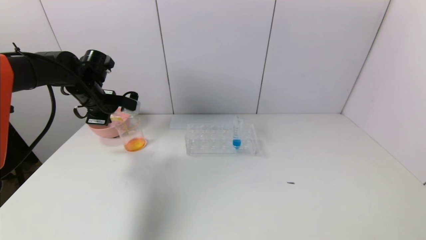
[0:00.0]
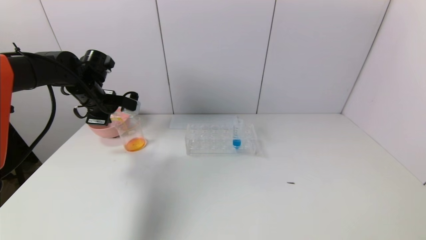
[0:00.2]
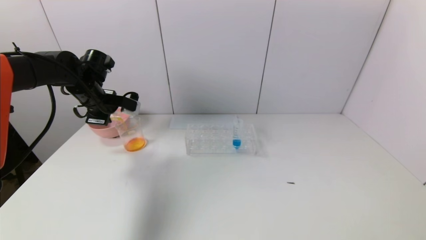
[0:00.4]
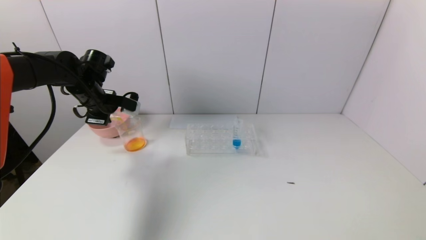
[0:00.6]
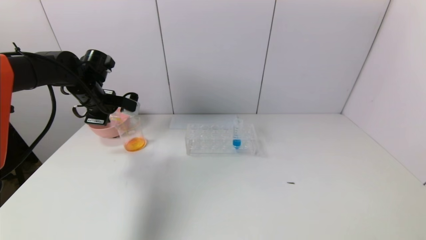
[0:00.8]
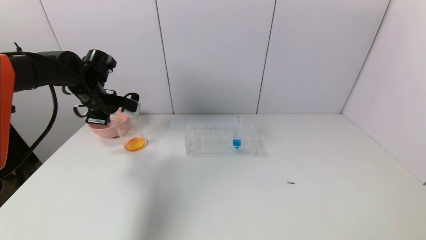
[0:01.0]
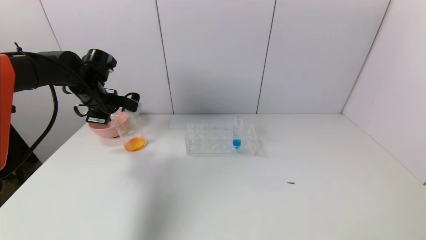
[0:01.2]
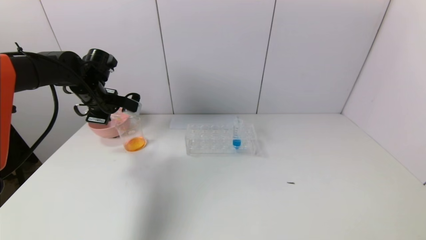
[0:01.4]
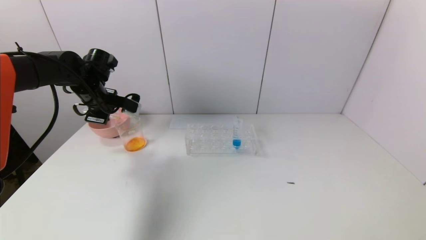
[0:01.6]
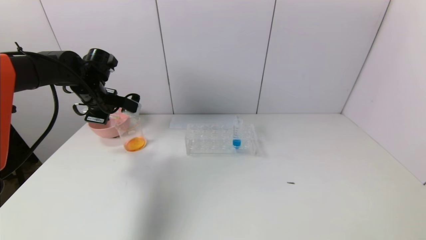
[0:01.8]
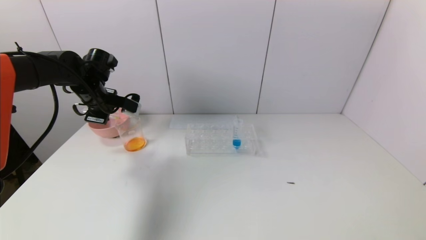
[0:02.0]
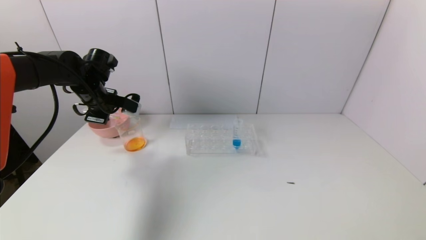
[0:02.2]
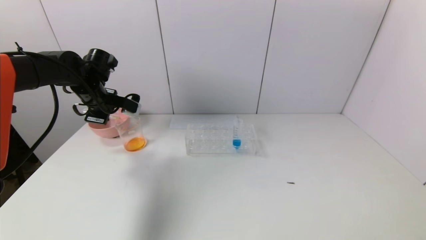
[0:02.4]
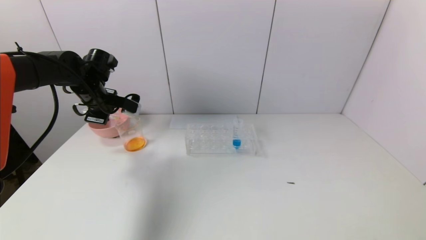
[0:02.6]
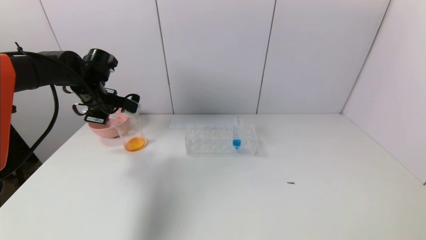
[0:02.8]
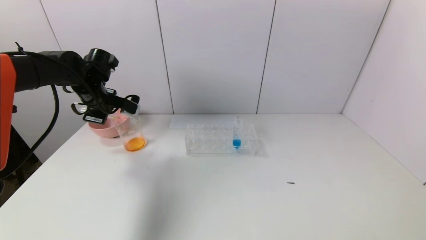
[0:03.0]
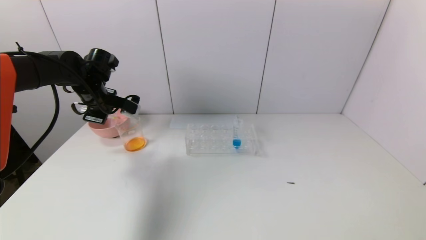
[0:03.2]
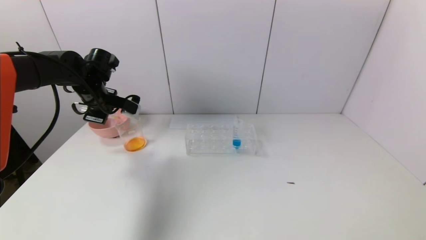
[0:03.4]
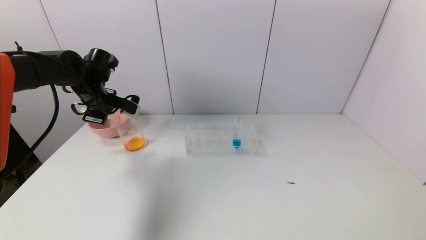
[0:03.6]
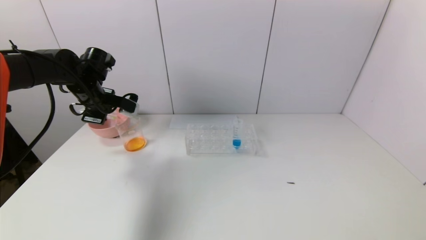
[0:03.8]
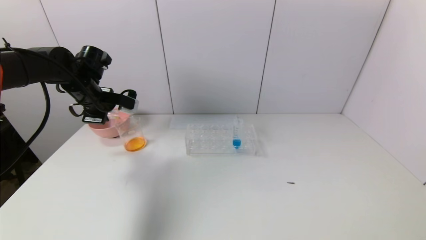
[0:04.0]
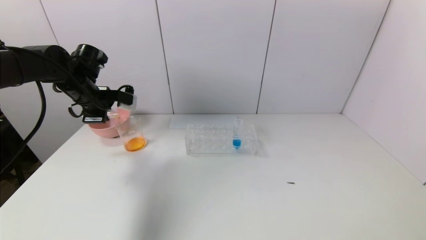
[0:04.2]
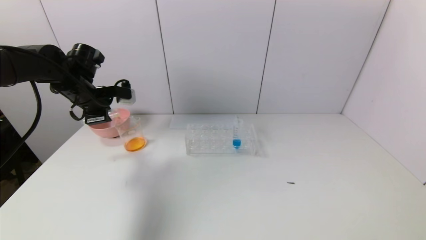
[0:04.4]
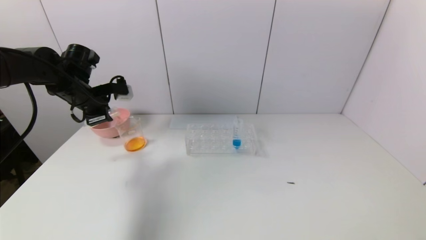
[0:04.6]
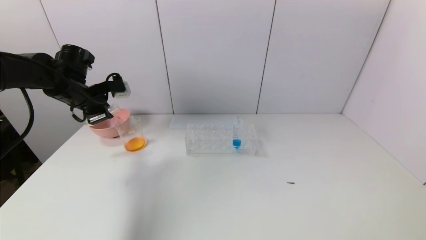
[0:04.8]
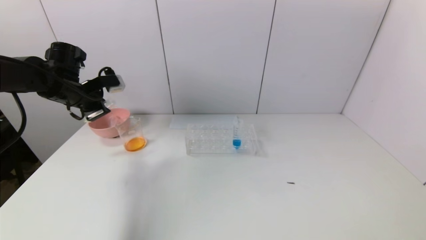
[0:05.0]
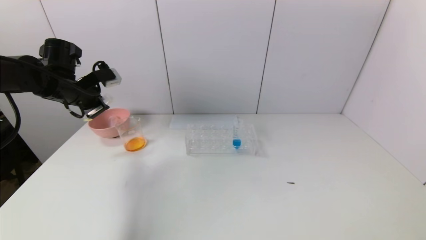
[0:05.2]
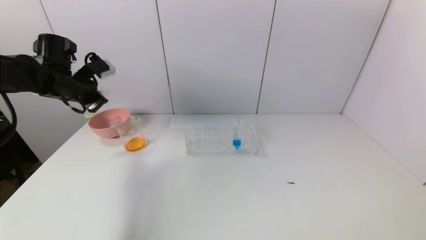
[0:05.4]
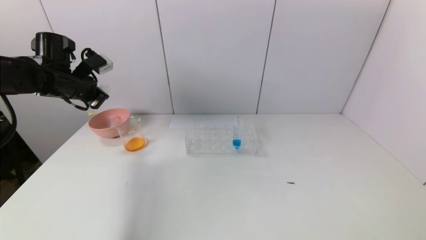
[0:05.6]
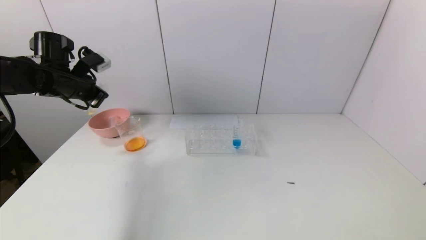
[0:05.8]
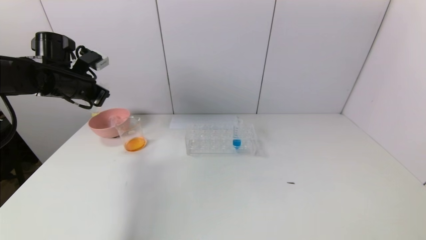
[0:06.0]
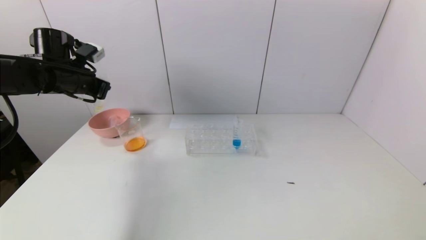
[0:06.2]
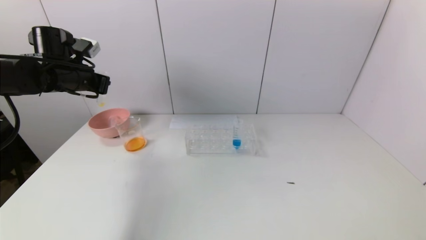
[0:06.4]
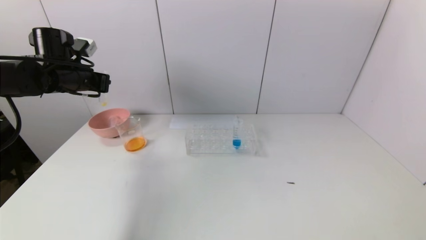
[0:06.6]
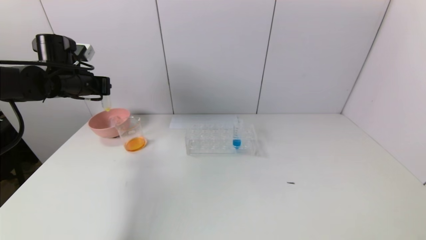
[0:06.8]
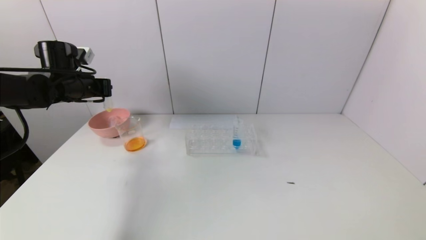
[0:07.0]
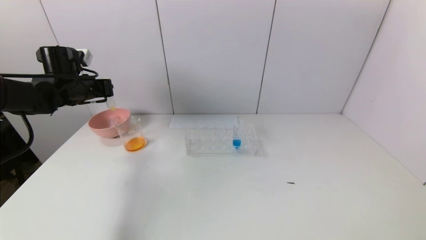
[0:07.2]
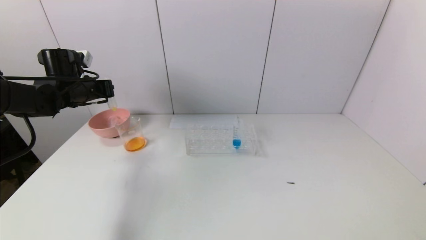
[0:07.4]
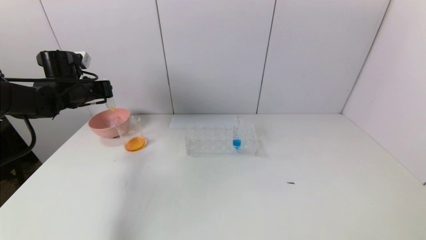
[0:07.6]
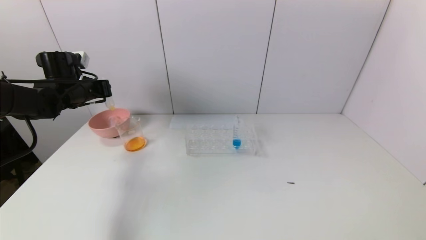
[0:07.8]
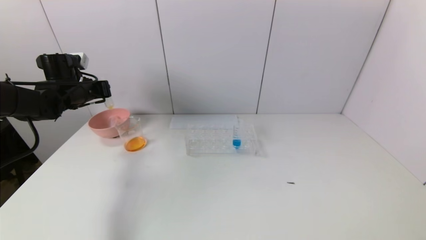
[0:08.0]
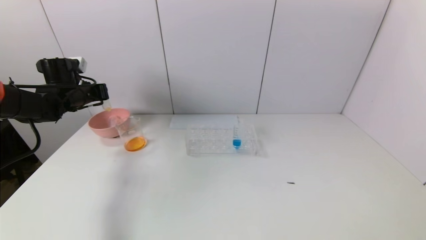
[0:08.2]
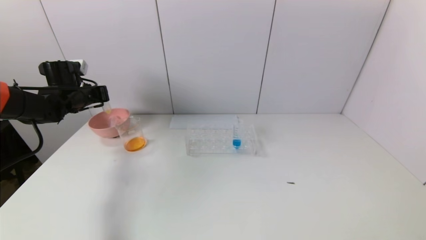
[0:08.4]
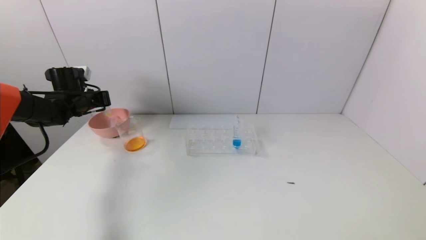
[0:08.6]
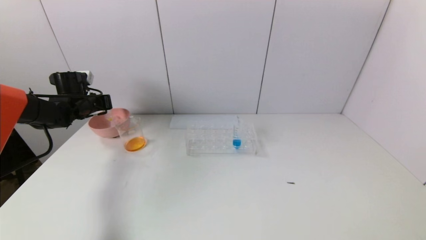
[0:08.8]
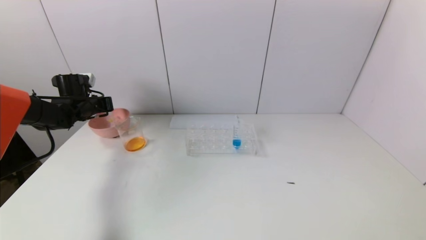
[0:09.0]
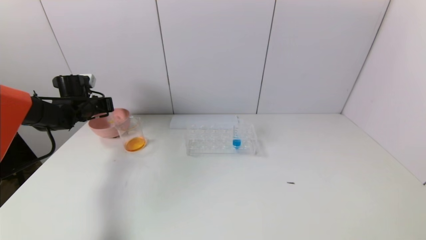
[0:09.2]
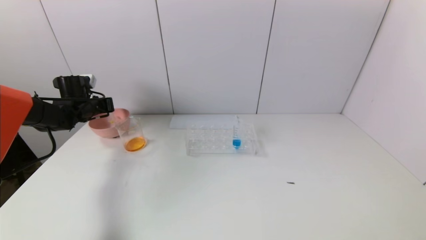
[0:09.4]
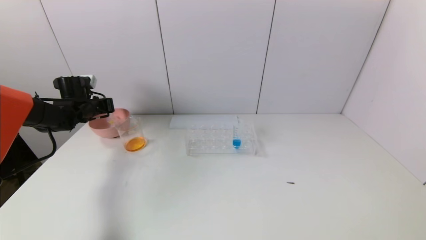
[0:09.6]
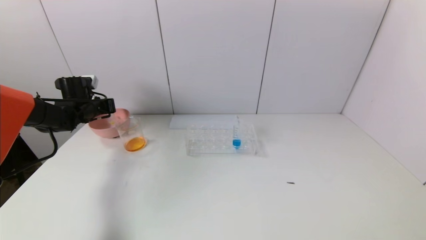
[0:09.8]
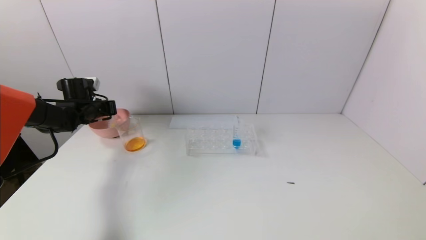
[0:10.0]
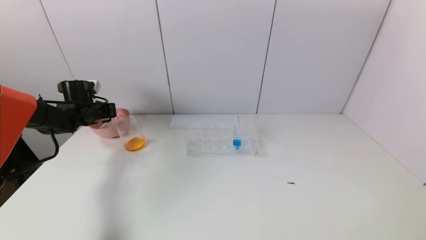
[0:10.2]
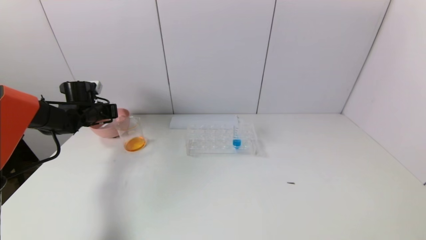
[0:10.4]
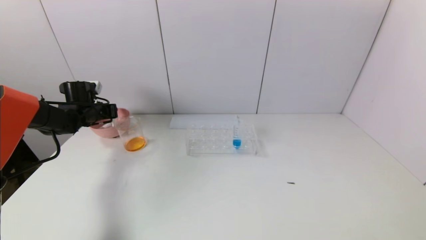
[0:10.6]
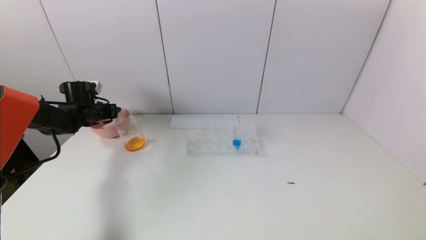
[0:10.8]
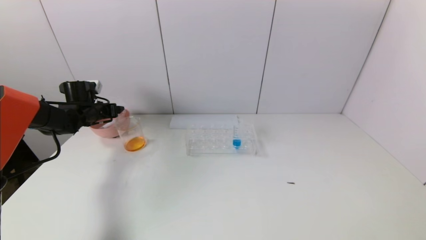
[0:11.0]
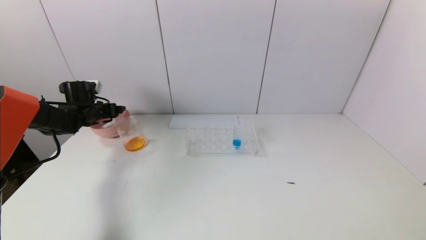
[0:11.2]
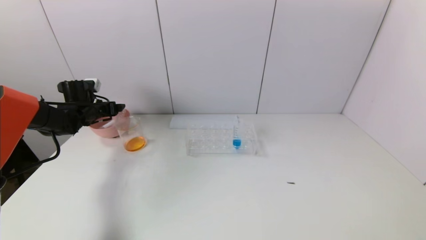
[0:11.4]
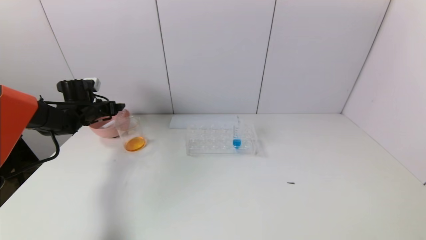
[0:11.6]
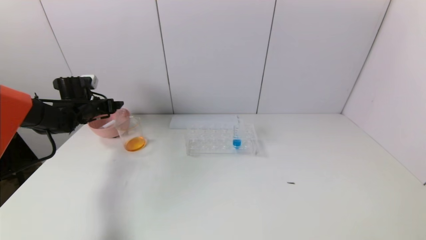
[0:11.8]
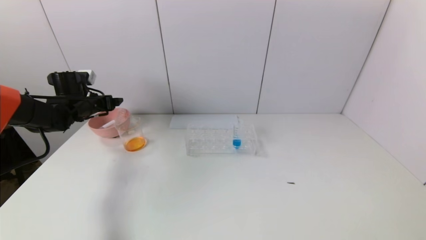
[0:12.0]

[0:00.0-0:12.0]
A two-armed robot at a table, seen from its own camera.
Task of the whole recording: pick up the test tube with yellow pigment and the test tube with red pigment by grippers and pour them into the beaker.
Step, 0:00.0 to 0:03.2: Pour the yellow reagent into the graduated cylinder with the left gripper.
Step, 0:03.4 to 0:10.8: Place the test tube into the pink bowl with the left gripper.
0:00.0 to 0:01.6: The grippers make only small movements.
0:01.6 to 0:03.0: Neither gripper changes place.
0:07.6 to 0:09.0: The left gripper travels downward by roughly 5 cm.
0:09.0 to 0:10.4: There are only small adjustments of the grippers.
0:10.4 to 0:12.0: The left gripper ends up approximately 5 cm from where it was, and opens its fingers.

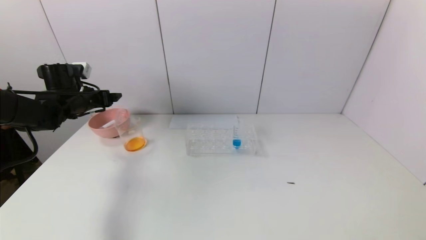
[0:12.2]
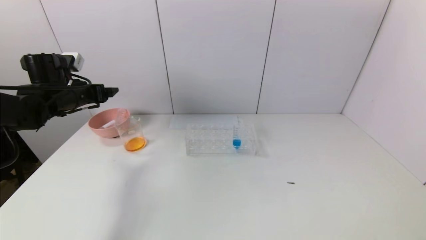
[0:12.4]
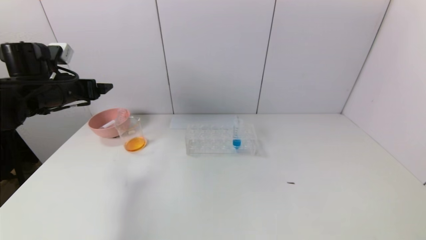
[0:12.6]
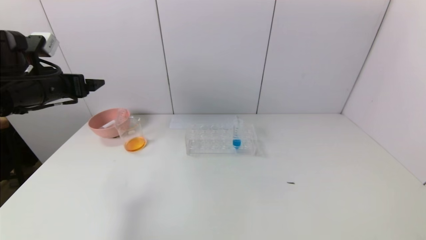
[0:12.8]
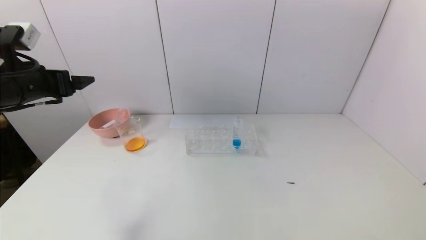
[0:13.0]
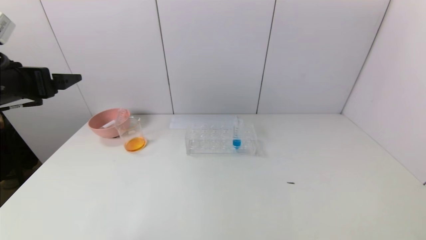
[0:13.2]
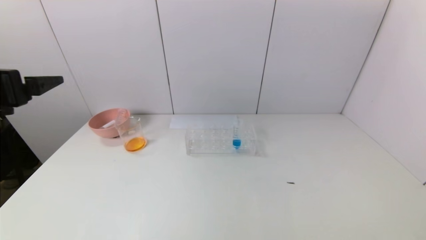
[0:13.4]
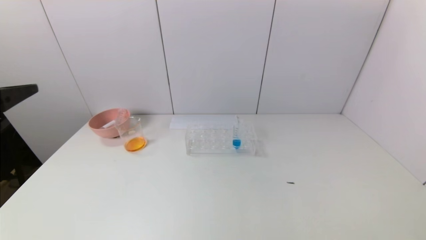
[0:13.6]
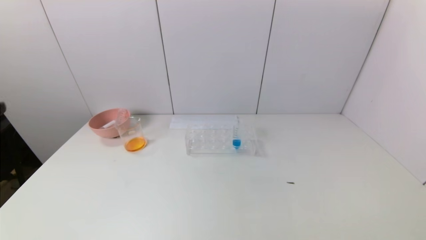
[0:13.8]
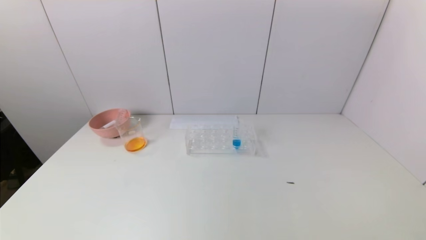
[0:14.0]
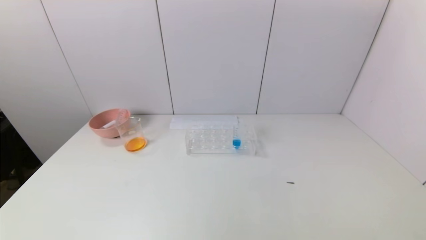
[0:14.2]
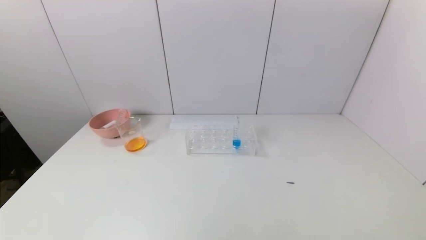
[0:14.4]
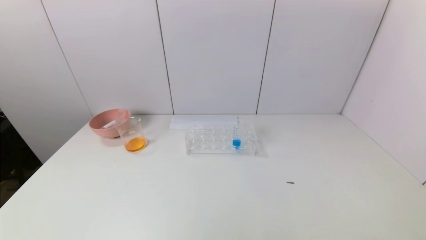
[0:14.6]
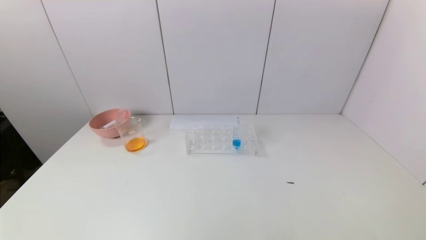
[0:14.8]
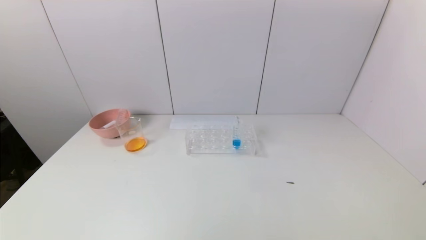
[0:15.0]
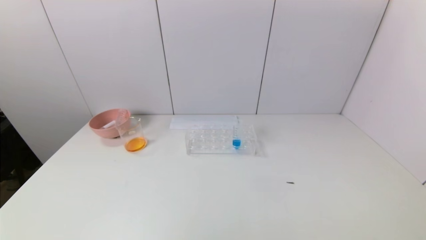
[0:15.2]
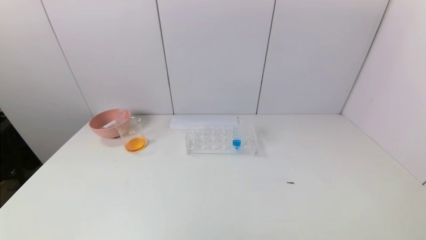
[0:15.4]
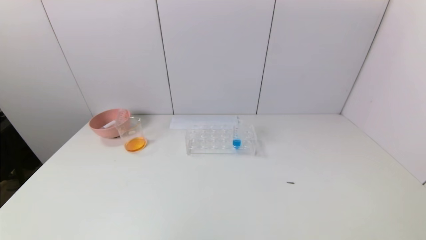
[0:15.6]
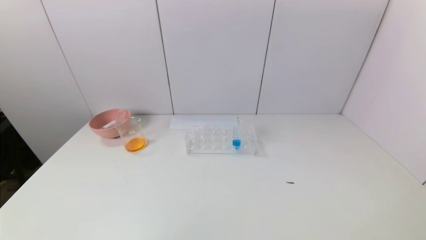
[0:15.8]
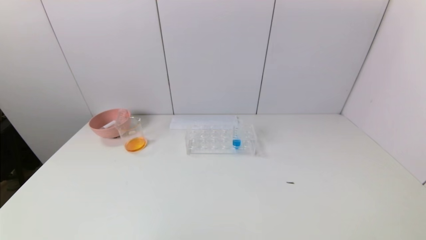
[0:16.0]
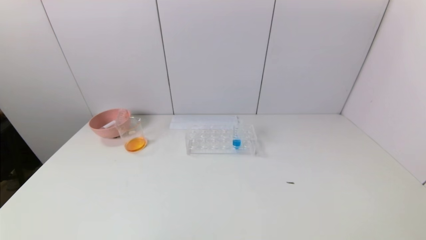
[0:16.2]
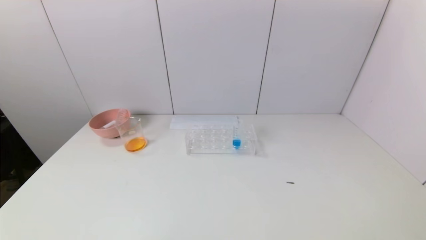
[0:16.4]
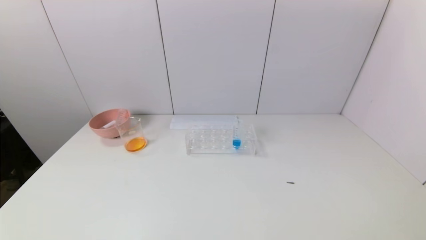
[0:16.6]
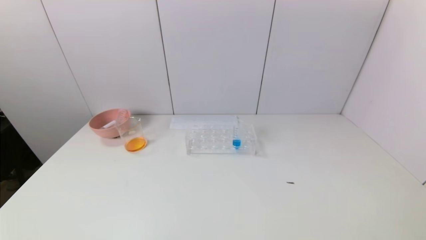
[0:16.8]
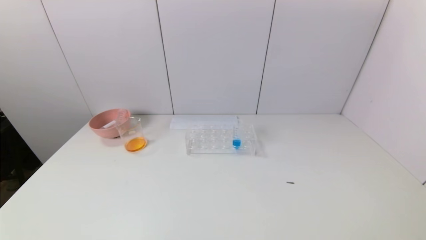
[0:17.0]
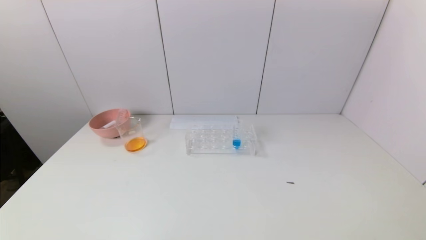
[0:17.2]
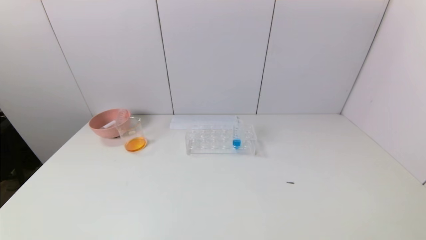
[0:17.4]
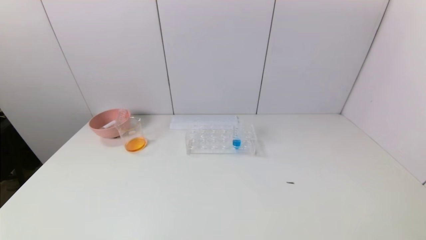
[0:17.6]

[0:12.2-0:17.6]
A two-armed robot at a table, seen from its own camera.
Task of the whole recording: pick up the test tube with yellow pigment and the test tube with red pigment by grippers and pour them into the beaker.
0:12.2 to 0:13.6: The left gripper heads backward, covering roughly 30 cm.
0:13.6 to 0:15.0: The left gripper shifts approximately 20 cm backward and downward.
